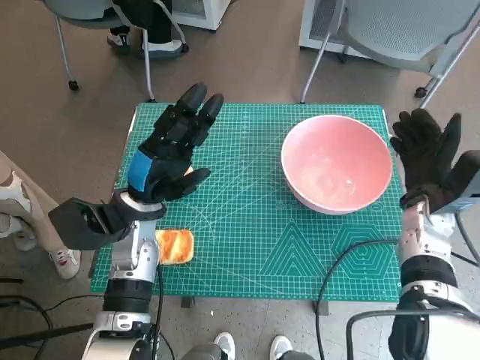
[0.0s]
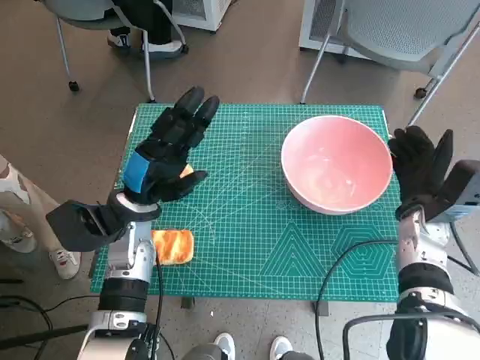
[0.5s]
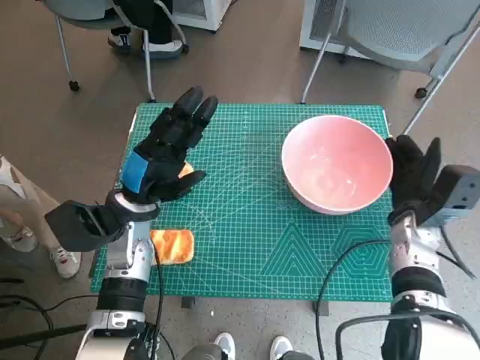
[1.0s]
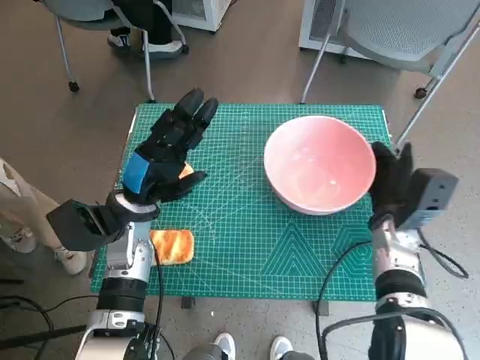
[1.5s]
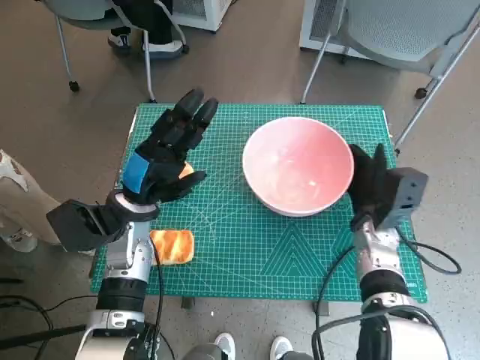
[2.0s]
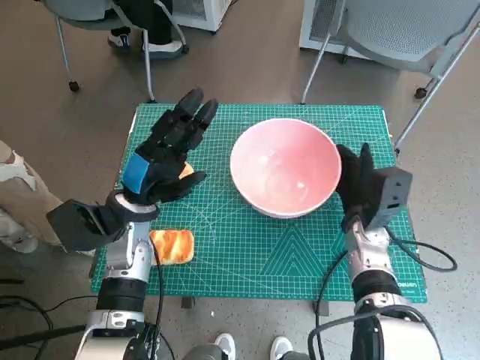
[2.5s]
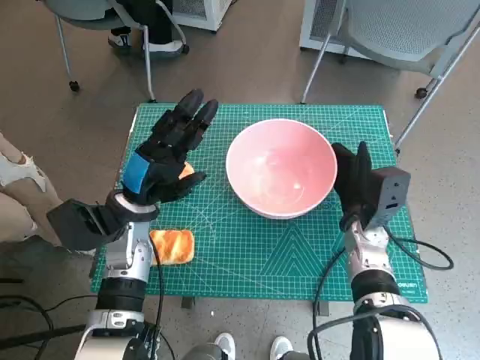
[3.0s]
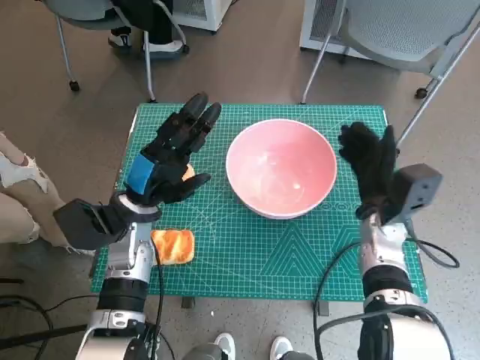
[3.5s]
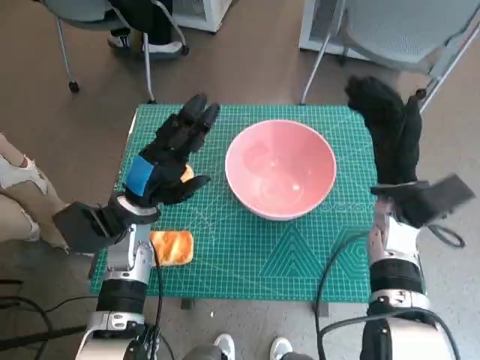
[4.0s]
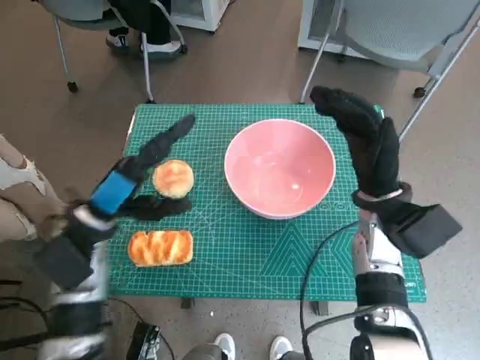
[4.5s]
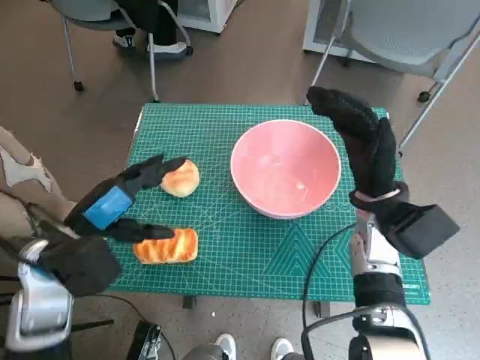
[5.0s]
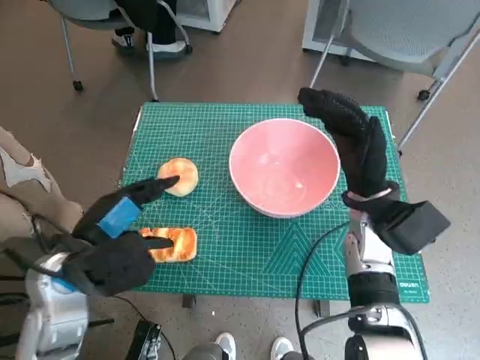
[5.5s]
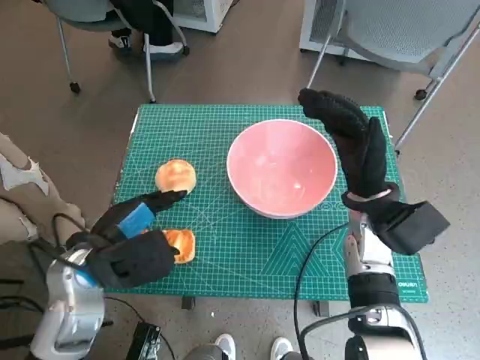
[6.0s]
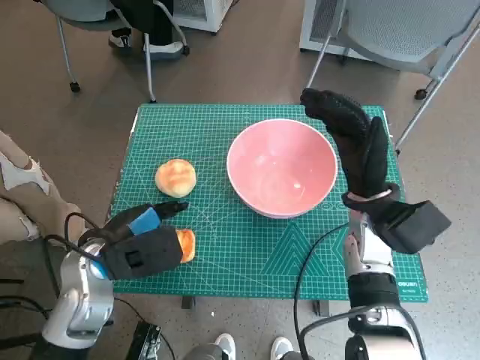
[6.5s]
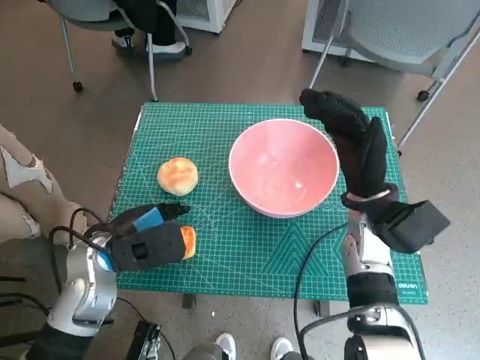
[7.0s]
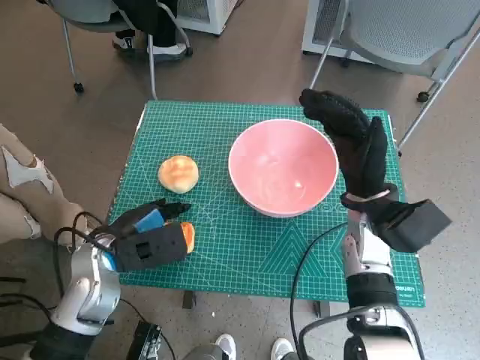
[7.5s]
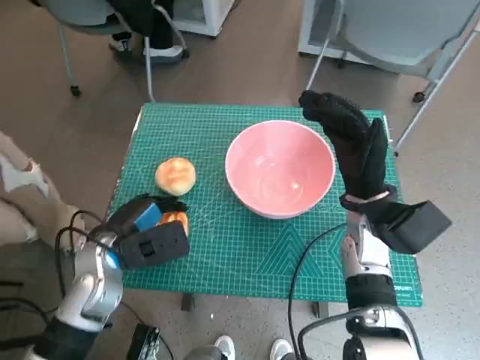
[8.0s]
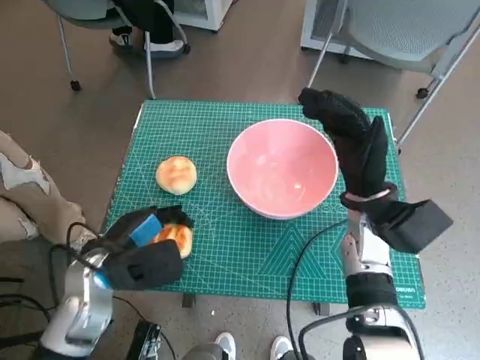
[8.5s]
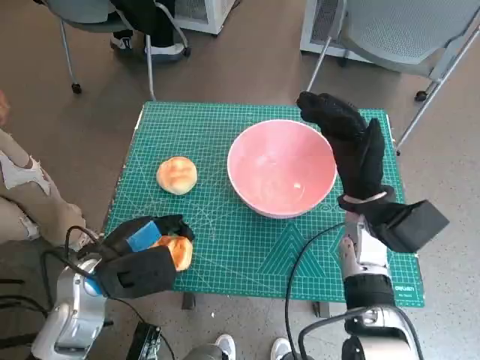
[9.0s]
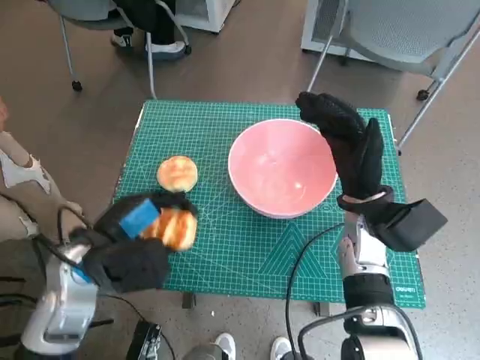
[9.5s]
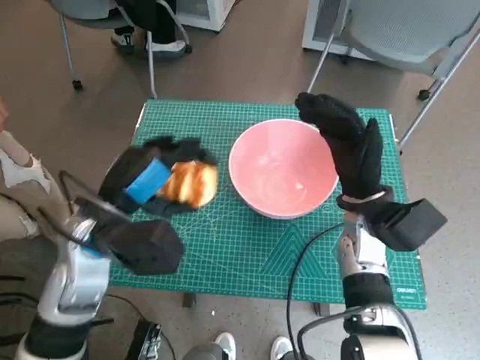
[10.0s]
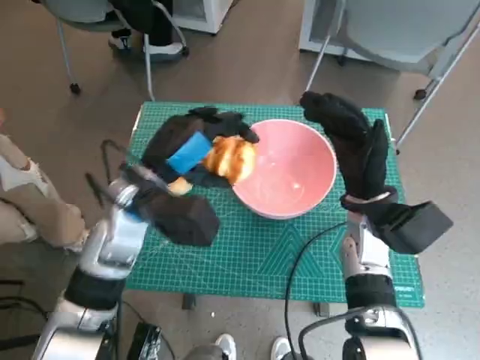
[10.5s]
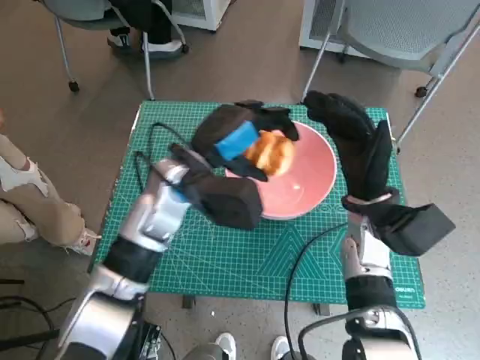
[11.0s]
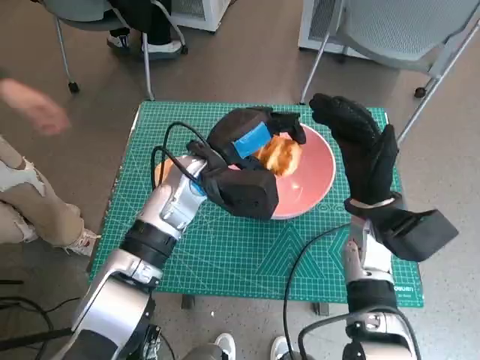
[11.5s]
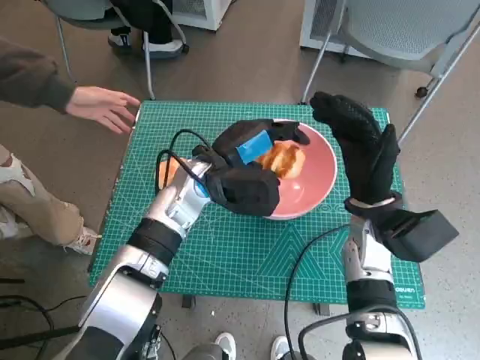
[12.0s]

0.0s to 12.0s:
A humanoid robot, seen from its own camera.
Step, 0.0s to 3.0s: Move the pink bowl to the center of table with right hand.
Step, 3.5s to 8.0s: Grasp the long bread with left hand.
0.0s to 2.0s: The right hand travels to the left by some 5 cm.
2.0s to 4.0s: The right hand heads upward, covering approximately 5 cm.
4.0s to 6.0s: The left hand is displaced backward by approximately 10 cm.
6.0s to 8.0s: The left hand shifts by some 5 cm.
8.0s to 10.0s: The left hand heads upward, covering about 10 cm.
10.0s to 12.0s: The left hand shifts about 15 cm forward and to the right.

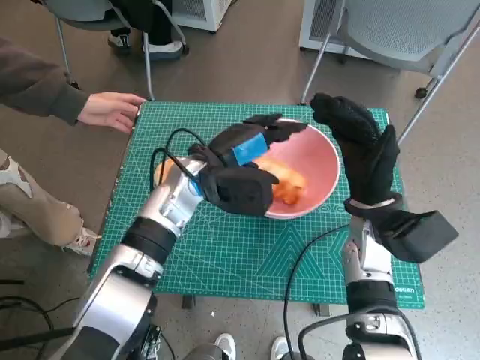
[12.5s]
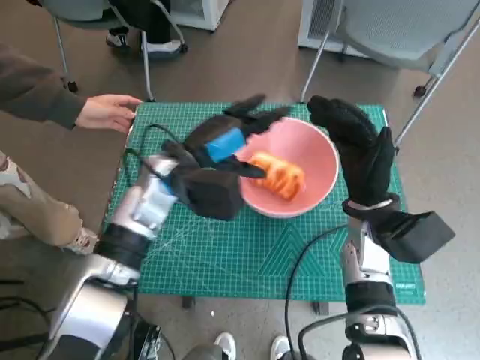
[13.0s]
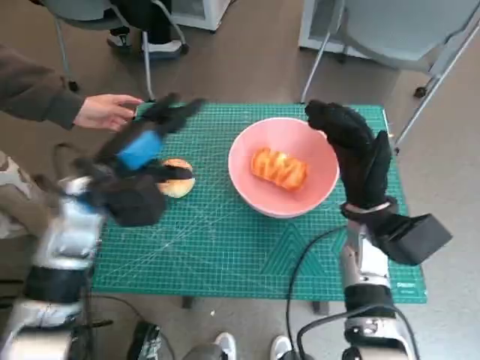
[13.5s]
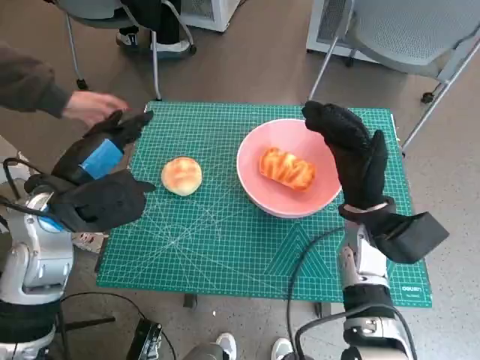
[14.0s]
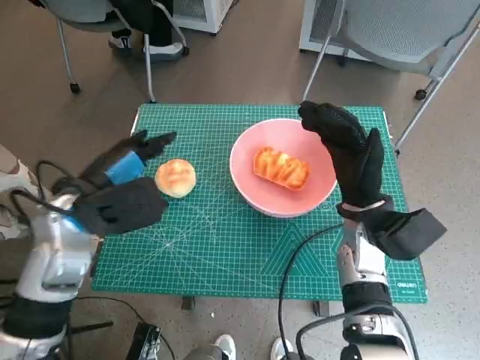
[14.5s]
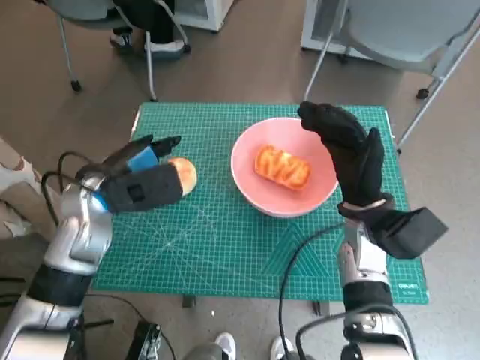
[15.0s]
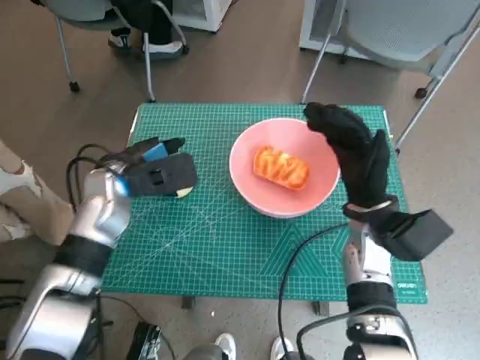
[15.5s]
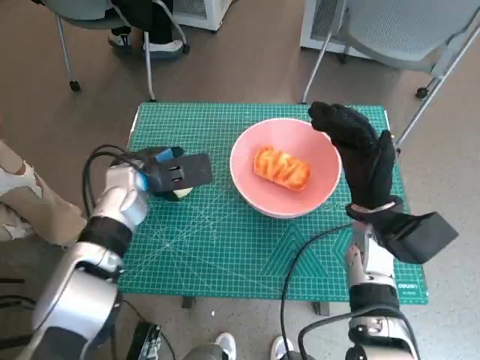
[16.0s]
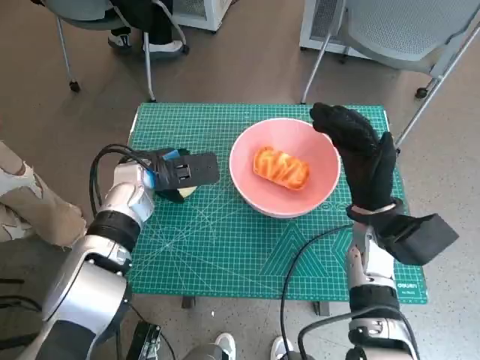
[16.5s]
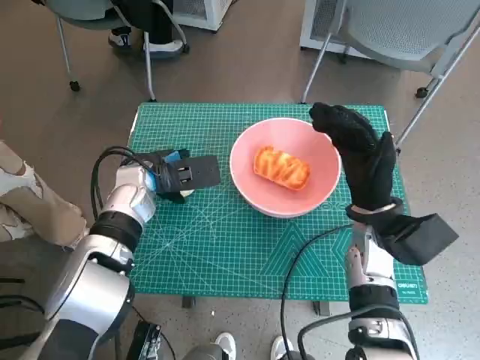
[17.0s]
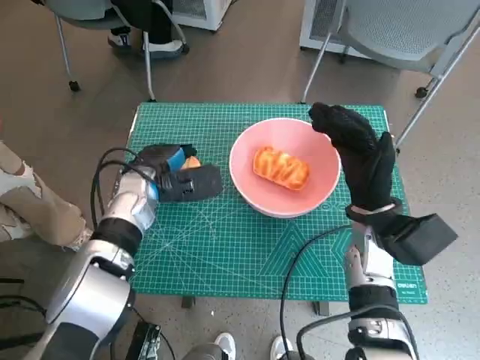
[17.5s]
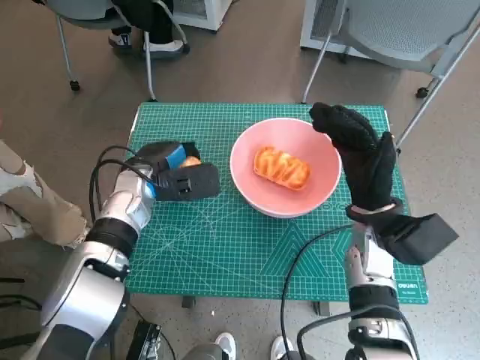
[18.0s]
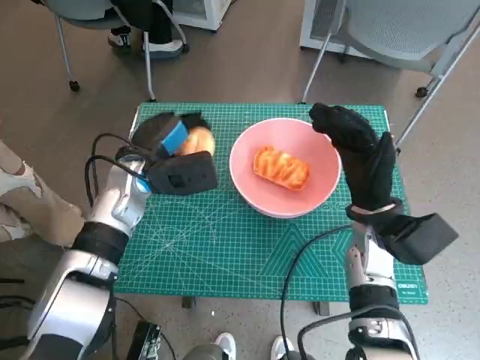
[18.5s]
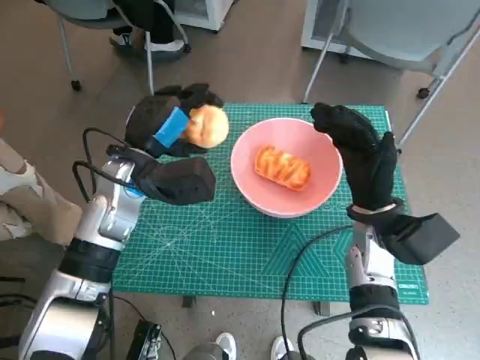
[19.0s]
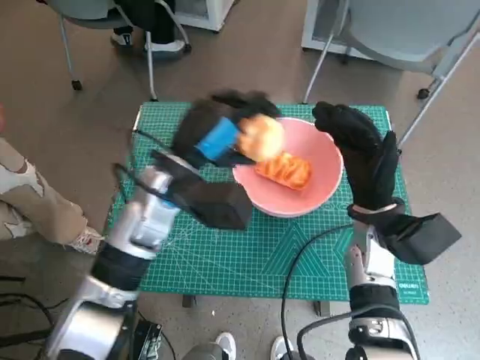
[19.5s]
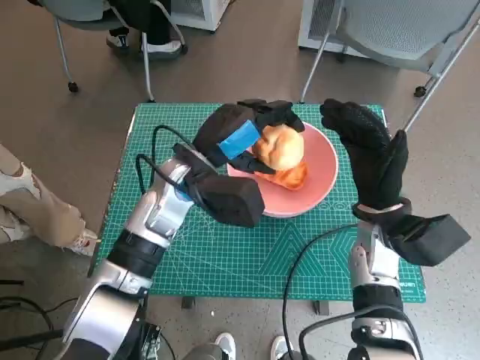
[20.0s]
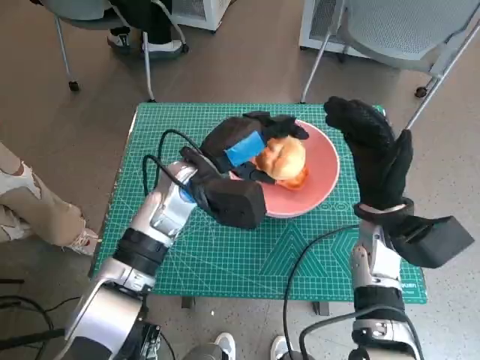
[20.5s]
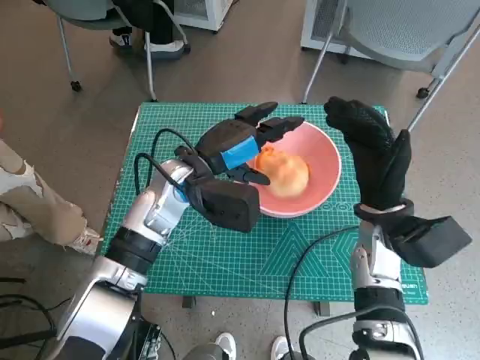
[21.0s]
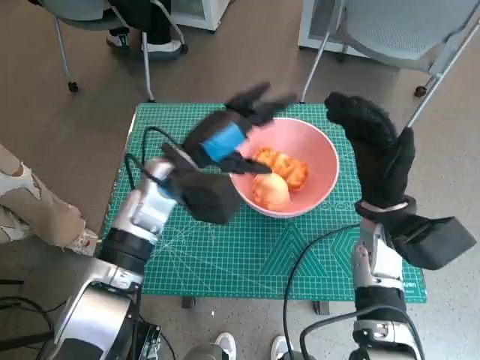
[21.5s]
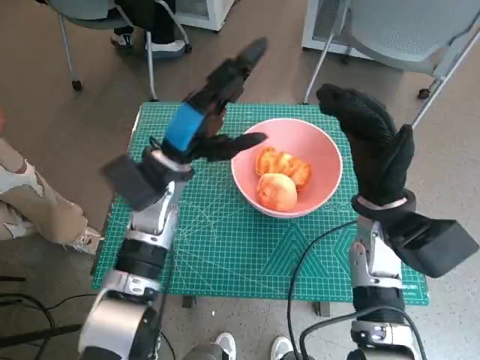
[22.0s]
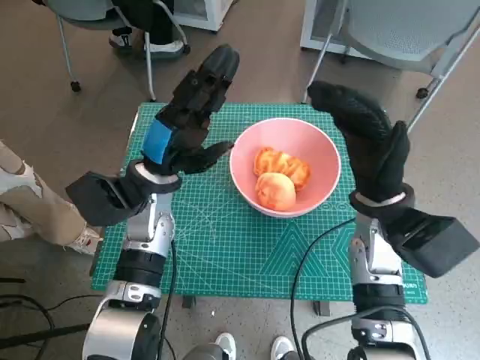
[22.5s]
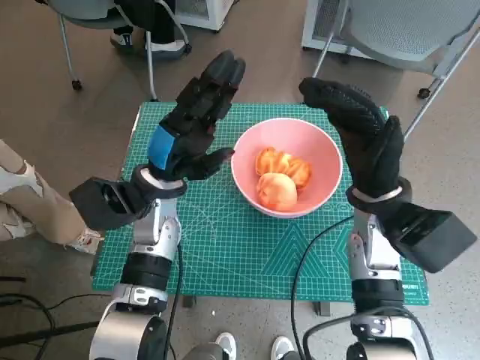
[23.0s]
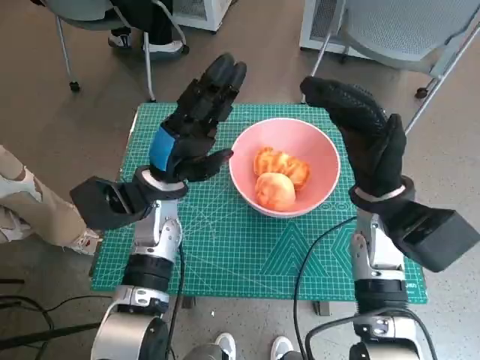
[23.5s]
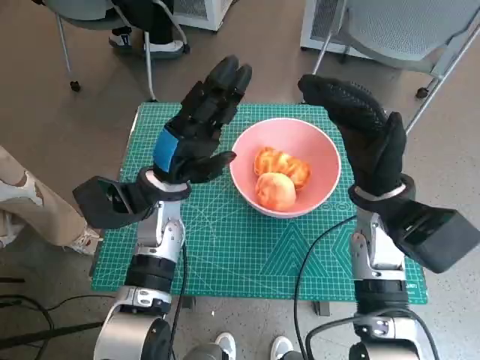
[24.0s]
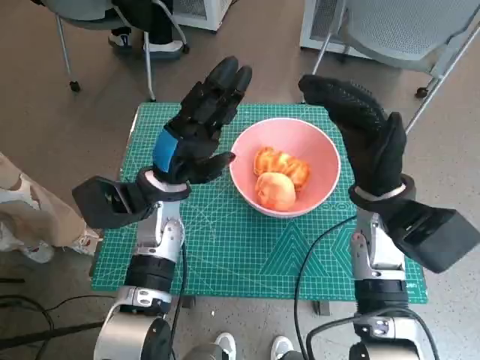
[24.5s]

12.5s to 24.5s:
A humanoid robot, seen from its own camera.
Step, 13.0s to 17.5s: Grasp the round bread with left hand.
Step, 18.0s to 21.0s: Place the round bread in pink bowl with left hand.
12.5s to 14.5s: The left hand heads to the left and backward, covering some 15 cm.
14.5s to 16.5s: The left hand travels forward and downward by approximately 10 cm.
18.5s to 20.5s: The left hand goes roughly 10 cm to the right.
20.5s to 22.5s: The left hand goes approximately 5 cm to the left.
22.5s to 24.5s: The hands make only small movements.

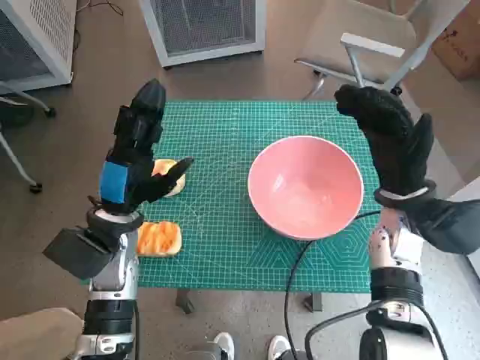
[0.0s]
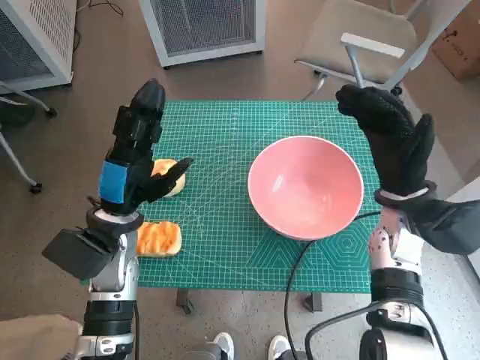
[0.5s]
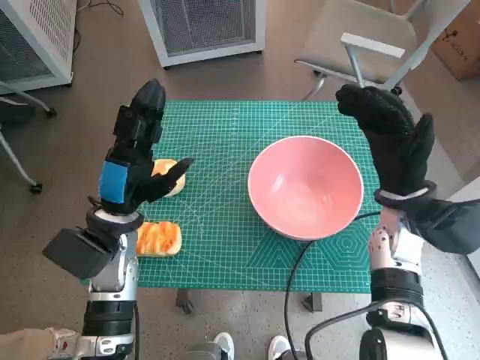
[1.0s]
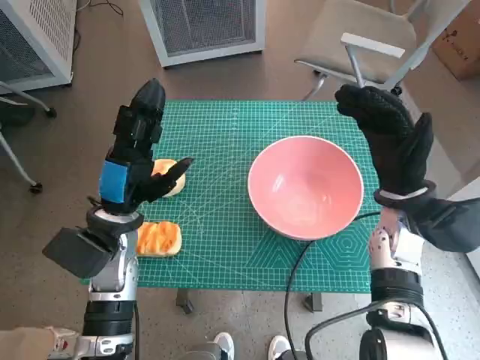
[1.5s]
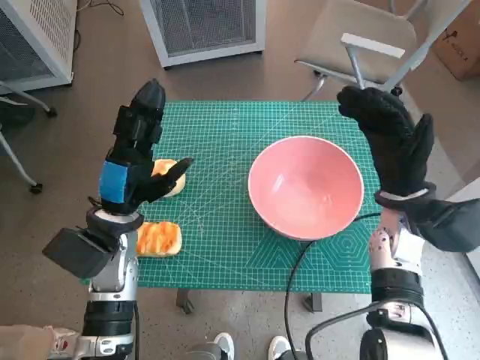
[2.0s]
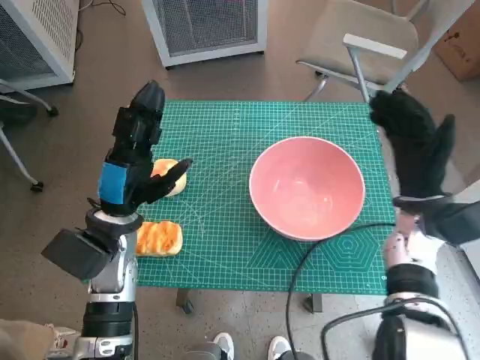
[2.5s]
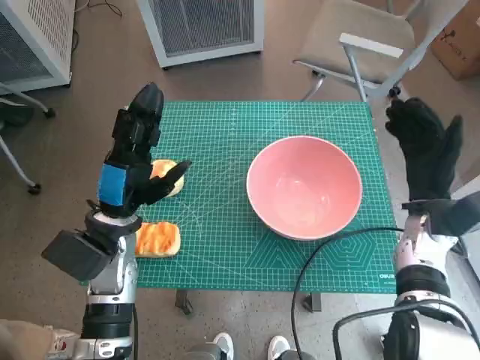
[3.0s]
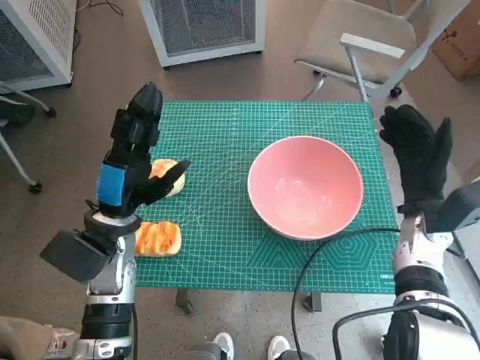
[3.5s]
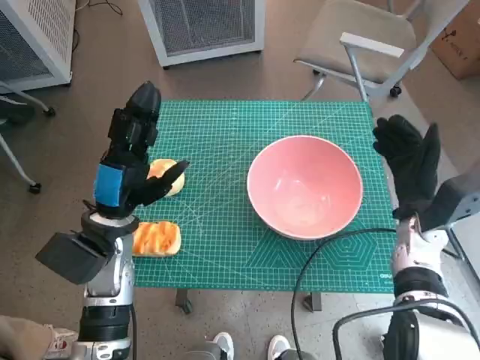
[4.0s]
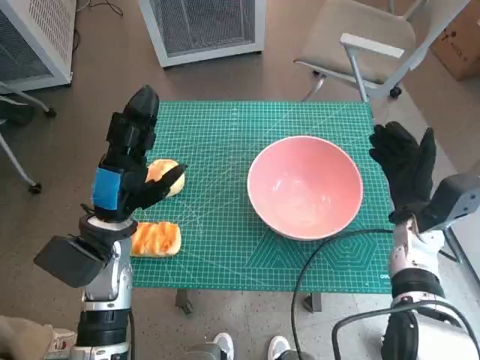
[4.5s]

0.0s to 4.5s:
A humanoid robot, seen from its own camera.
2.0s to 4.5s: The right hand is displaced downward by approximately 5 cm.
